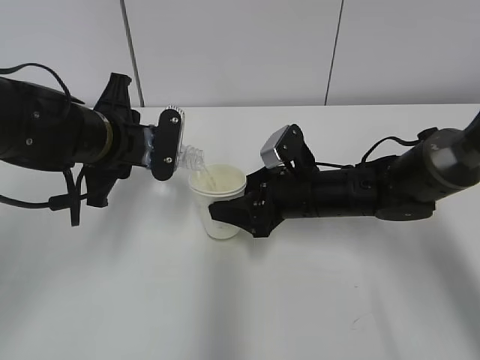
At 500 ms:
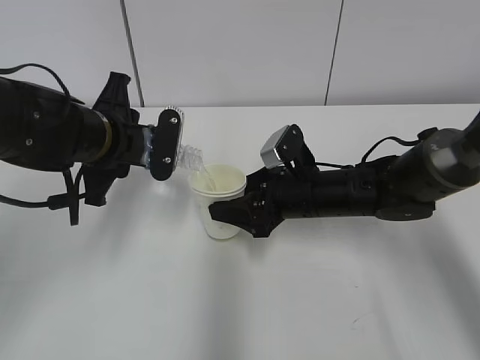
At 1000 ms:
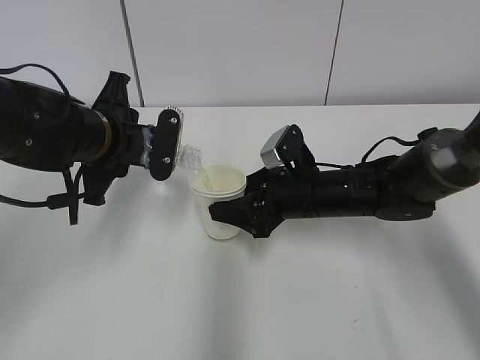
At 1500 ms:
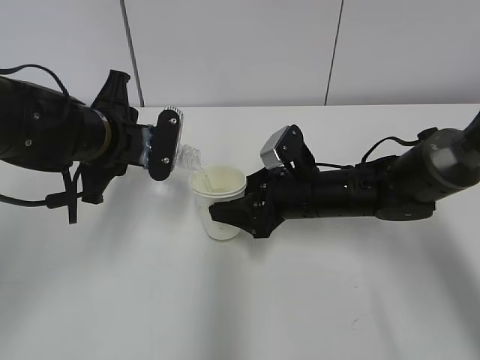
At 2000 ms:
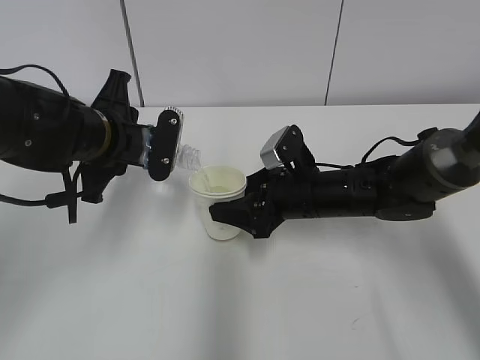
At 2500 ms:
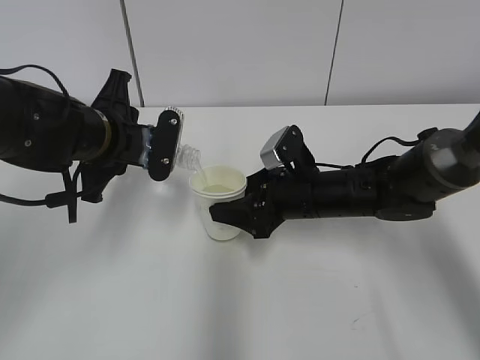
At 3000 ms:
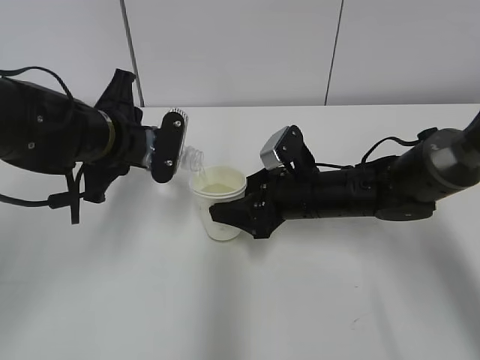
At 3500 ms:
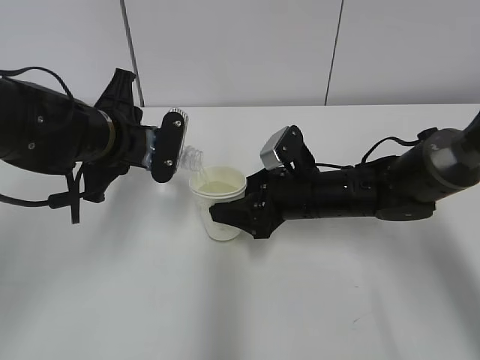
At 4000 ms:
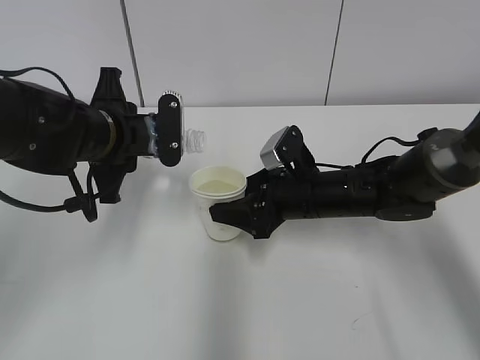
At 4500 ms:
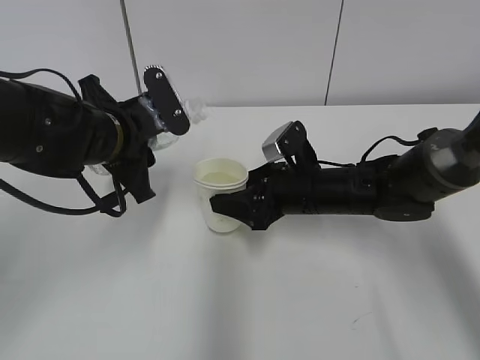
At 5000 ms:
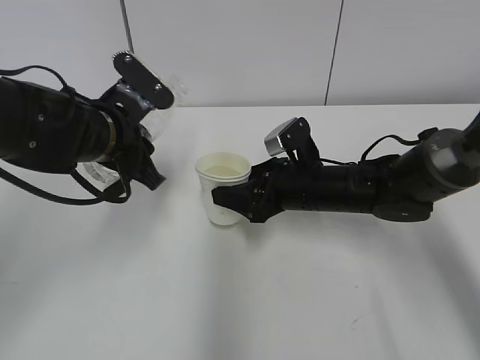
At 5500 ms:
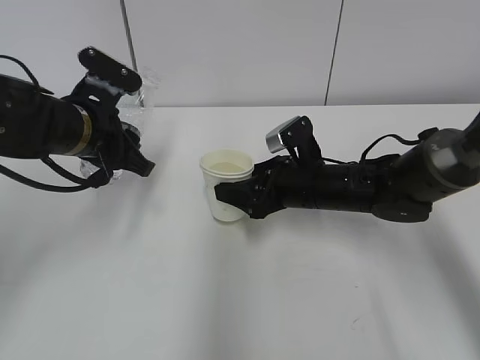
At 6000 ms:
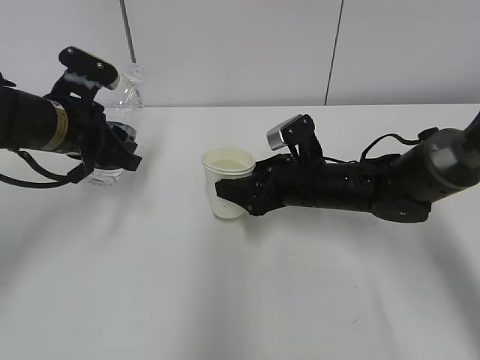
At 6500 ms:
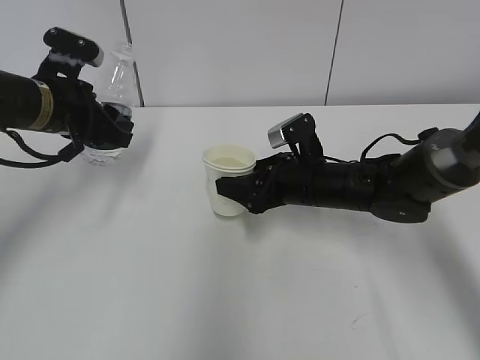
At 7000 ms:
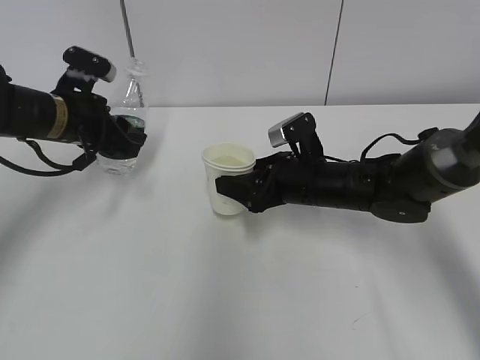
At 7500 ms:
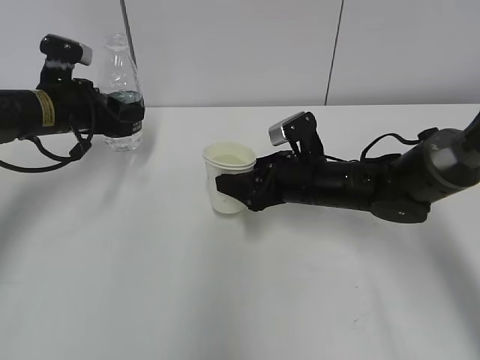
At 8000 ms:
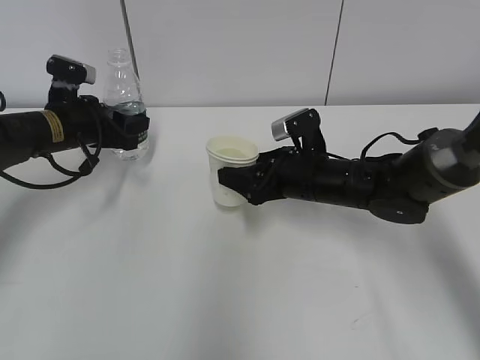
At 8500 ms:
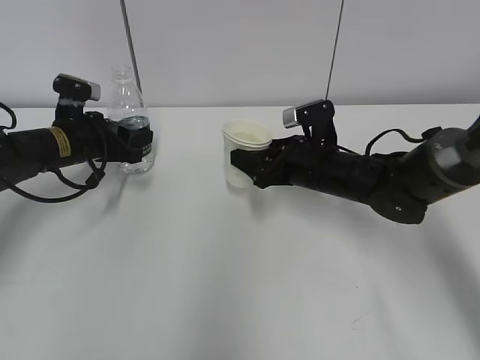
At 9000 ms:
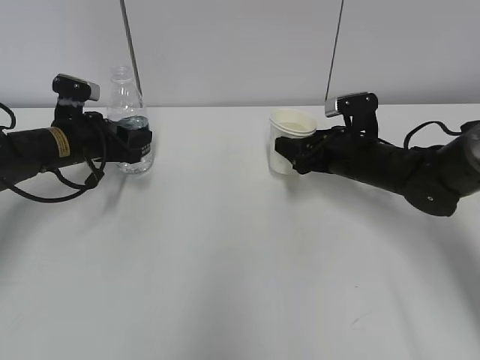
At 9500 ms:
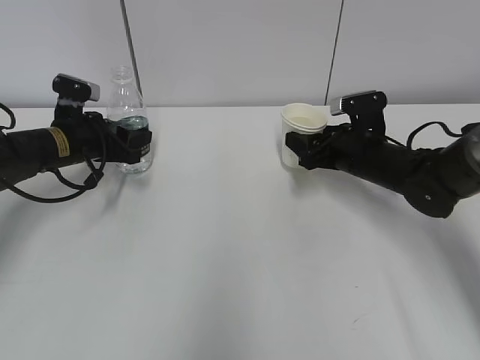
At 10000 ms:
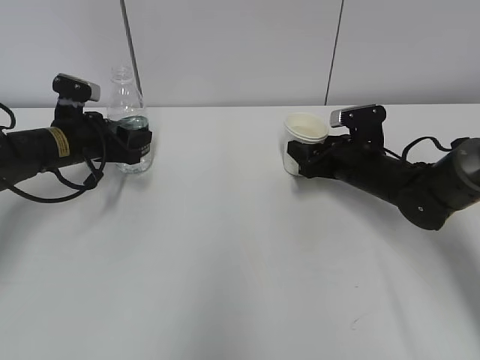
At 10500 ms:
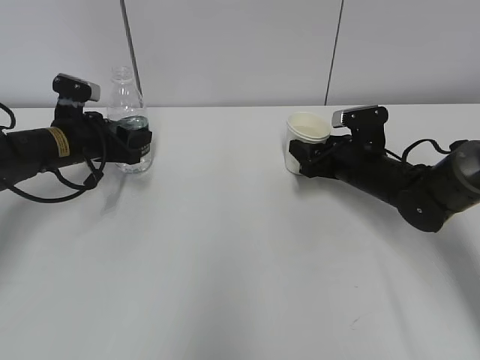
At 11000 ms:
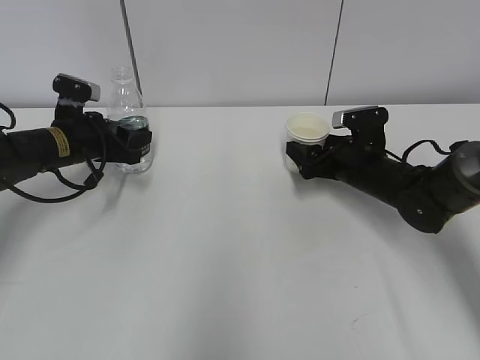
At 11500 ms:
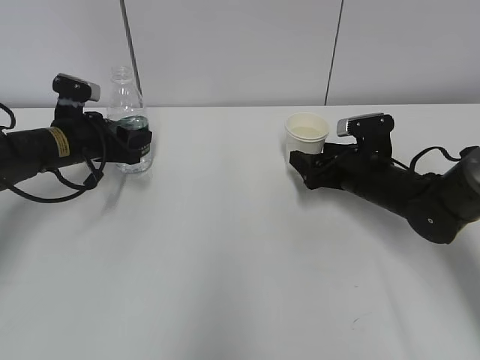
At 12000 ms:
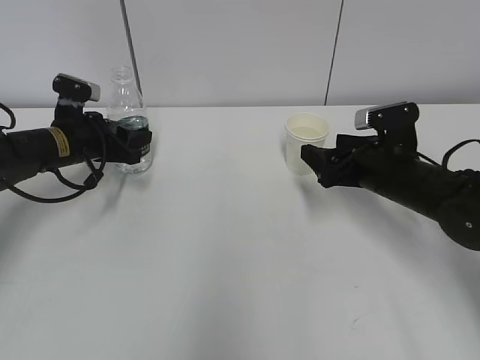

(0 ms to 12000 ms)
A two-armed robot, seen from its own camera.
Step, 1500 ms - 5500 ms: Place the paper cup with the right hand.
Step, 6000 ms - 7500 ms: Place the water bottle with the left hand.
0 ms - 2000 ms: The two grippers keep their place.
2000 ms - 4000 ms: The grippers move only a little.
4000 ms - 6000 ms: The left gripper is displaced to the left by approximately 5 cm.
6000 ms - 8000 ms: The left gripper travels forward and downward by some 10 cm.
8000 ms - 10000 ms: The right gripper heads to the right, covering approximately 10 cm.
10000 ms - 12000 ms: The right gripper travels backward by about 5 cm, and opens up.

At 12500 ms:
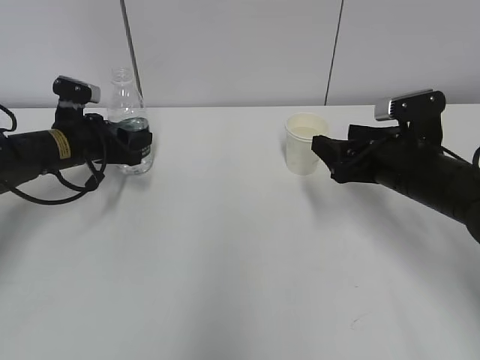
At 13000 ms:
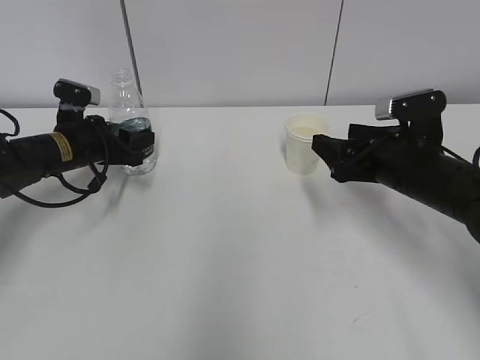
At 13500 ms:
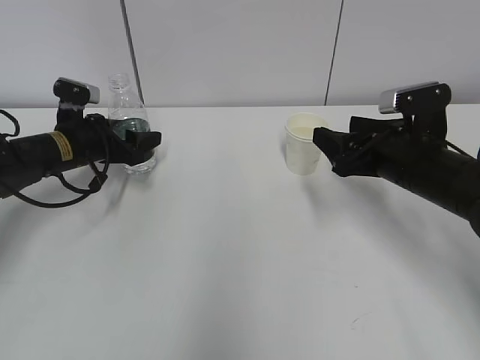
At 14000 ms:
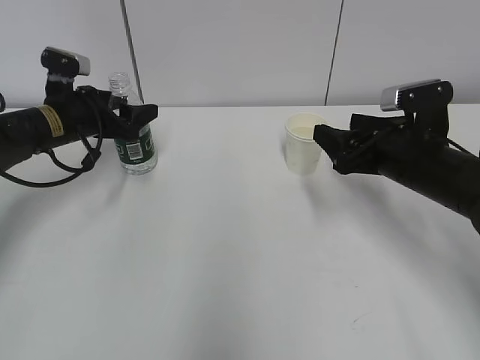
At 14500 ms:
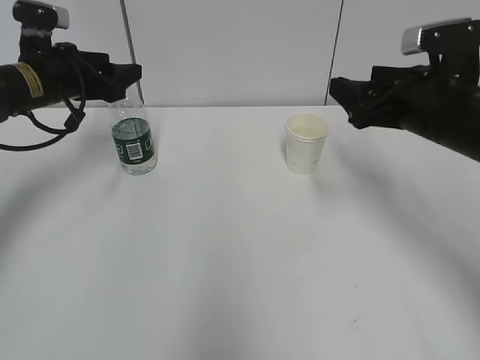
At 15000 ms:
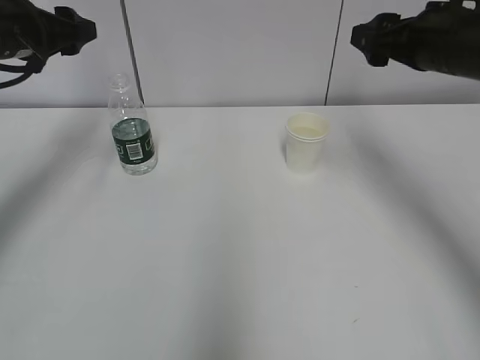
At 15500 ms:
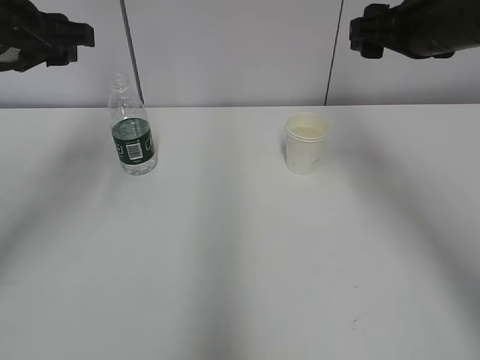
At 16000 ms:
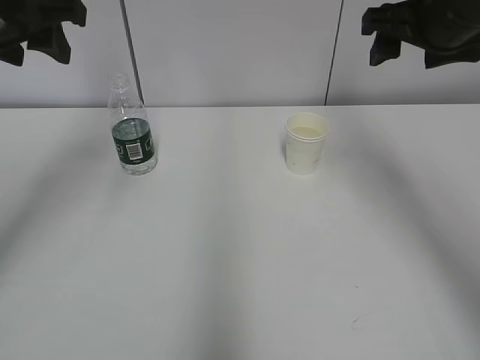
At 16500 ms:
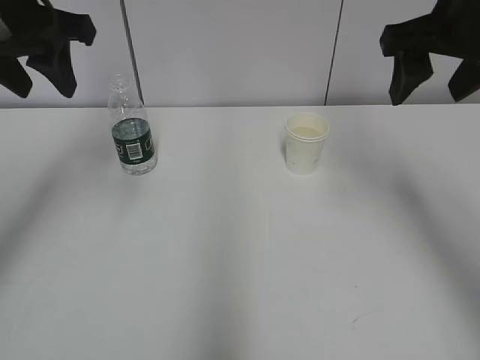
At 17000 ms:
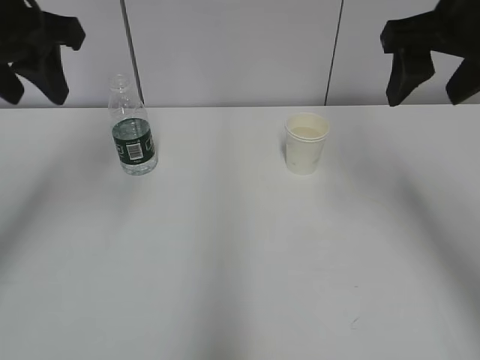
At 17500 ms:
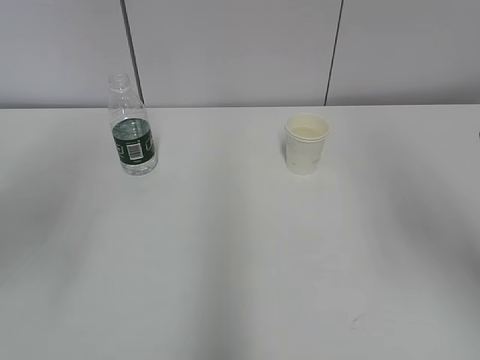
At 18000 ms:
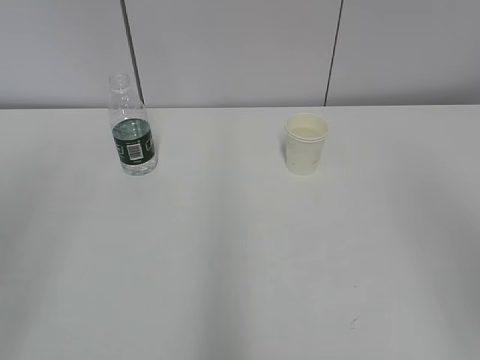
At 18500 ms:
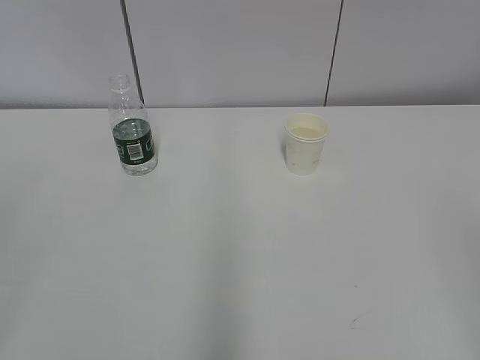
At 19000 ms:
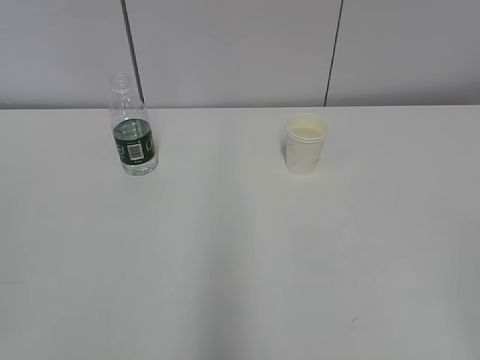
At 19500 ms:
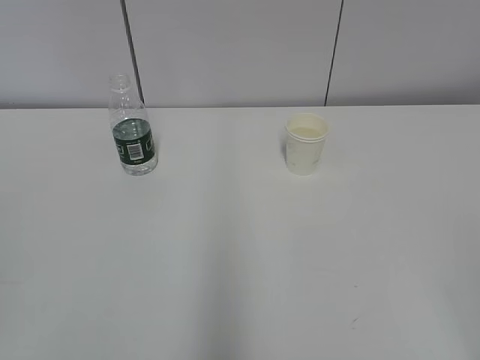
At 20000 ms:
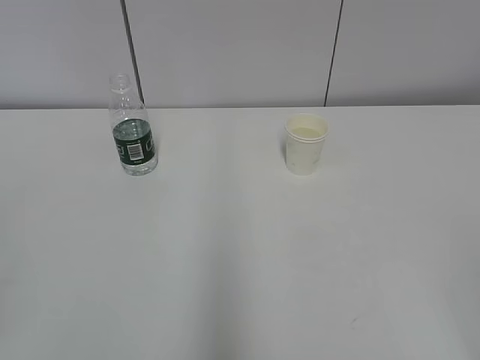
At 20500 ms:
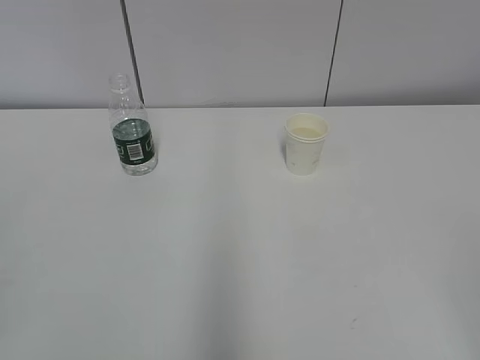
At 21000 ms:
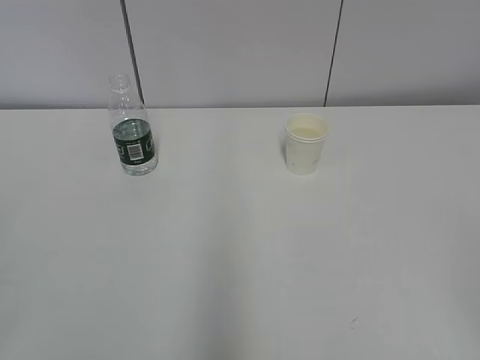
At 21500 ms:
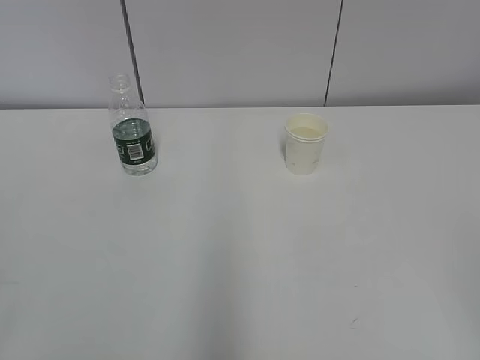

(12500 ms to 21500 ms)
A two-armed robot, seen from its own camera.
12500 ms - 14500 ms: Both grippers travel together upward, approximately 10 cm. The left gripper opens its fingers.
14500 ms - 17000 ms: The left gripper shifts about 20 cm upward and backward, and closes; the right gripper goes some 15 cm upward.
17000 ms - 19500 ms: Both grippers travel together backward, about 30 cm.

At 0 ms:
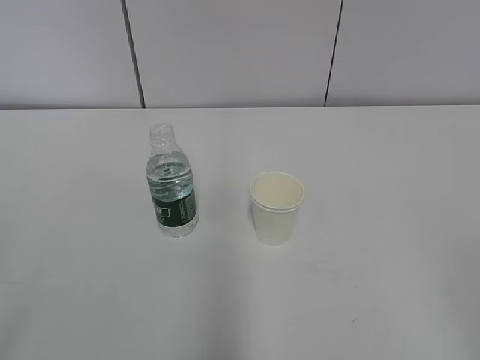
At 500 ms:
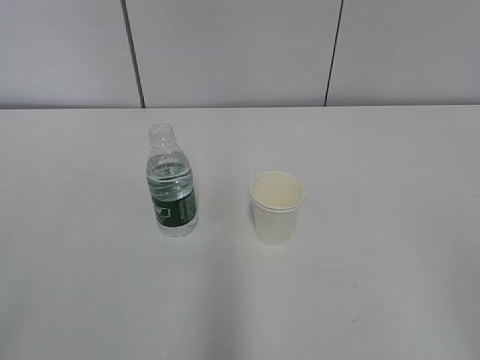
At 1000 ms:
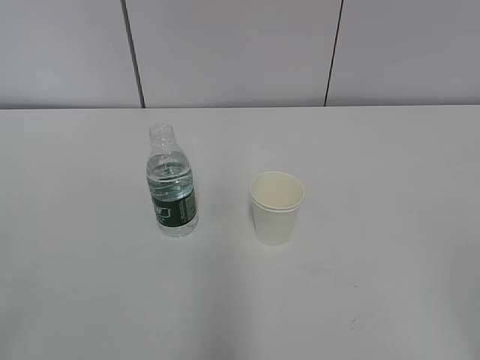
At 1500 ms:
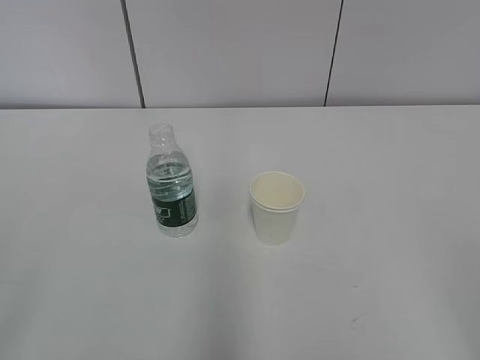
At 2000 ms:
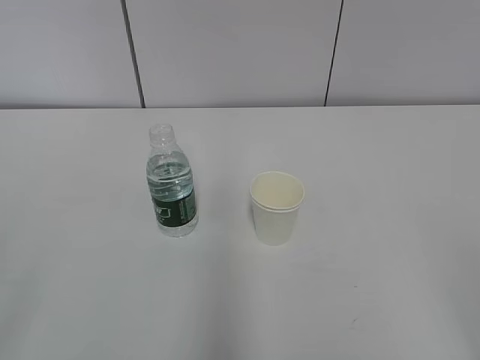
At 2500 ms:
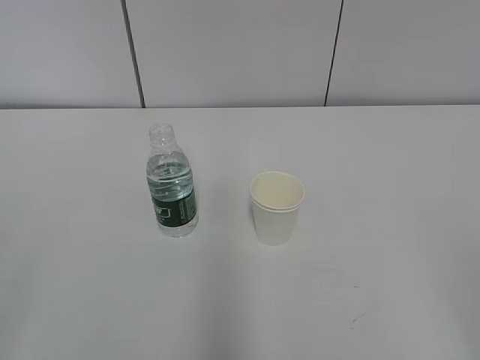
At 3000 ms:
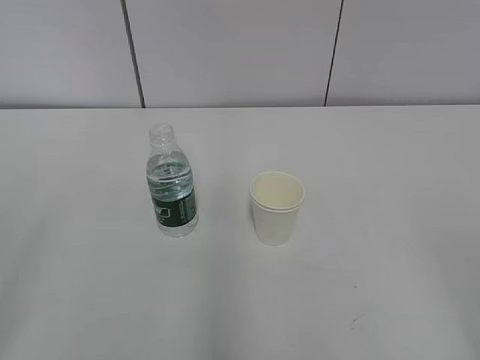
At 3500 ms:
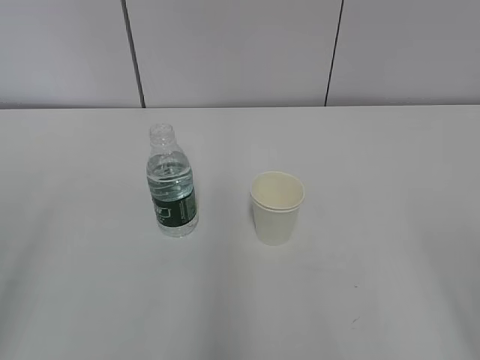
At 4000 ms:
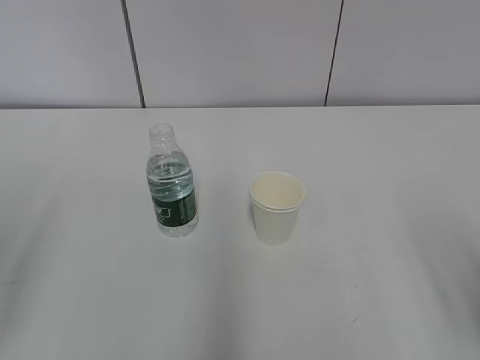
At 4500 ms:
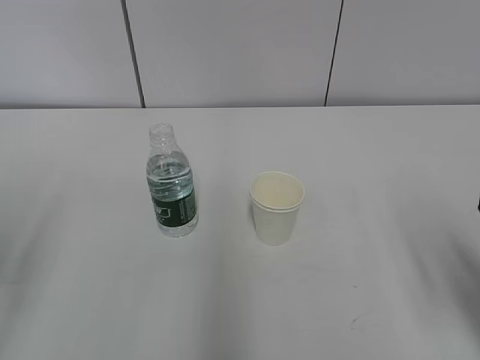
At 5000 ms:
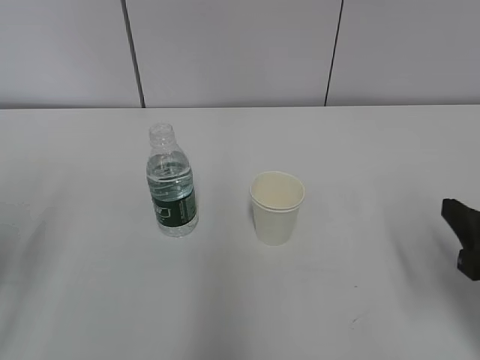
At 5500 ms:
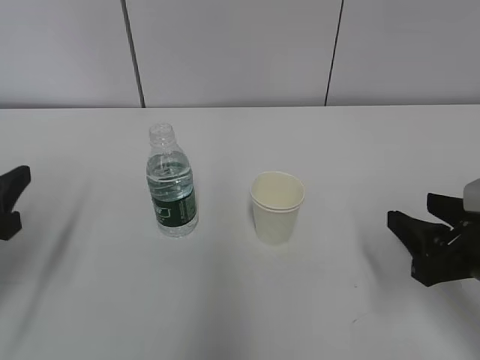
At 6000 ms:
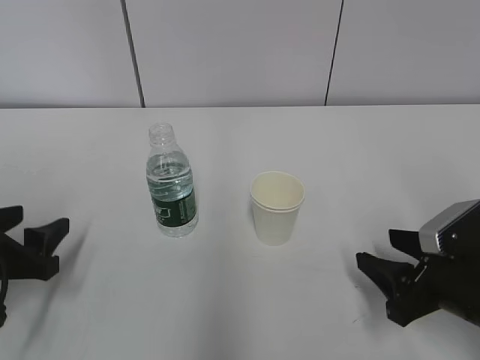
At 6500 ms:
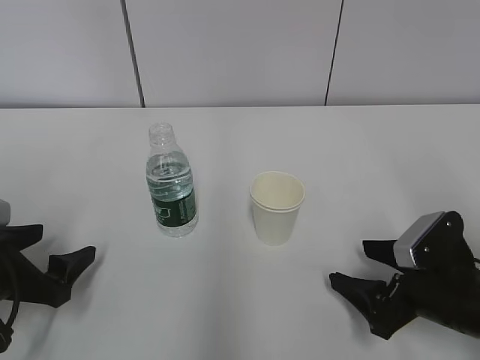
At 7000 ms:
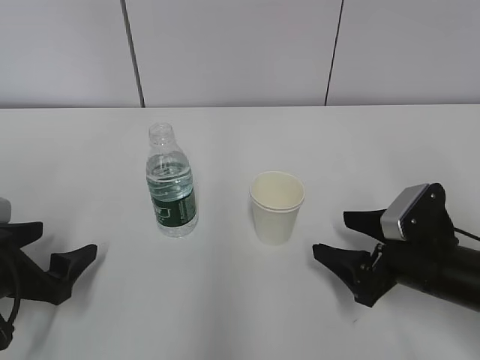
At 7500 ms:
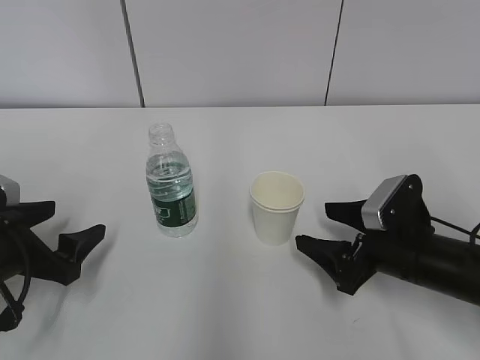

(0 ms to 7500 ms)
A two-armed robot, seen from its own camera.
4000 ms - 5500 ms: The grippers both shift forward and downward by roughly 10 cm.
5500 ms - 7500 ms: The left gripper goes approximately 10 cm downward. Meanwhile the right gripper is displaced forward and downward by roughly 10 cm, and opens its fingers.
